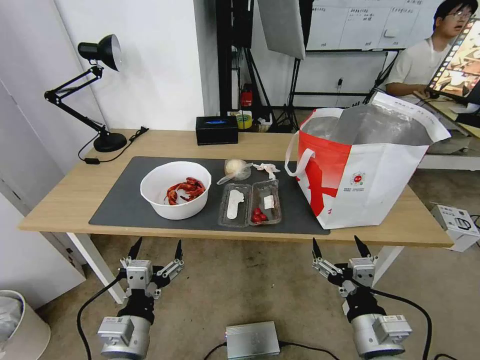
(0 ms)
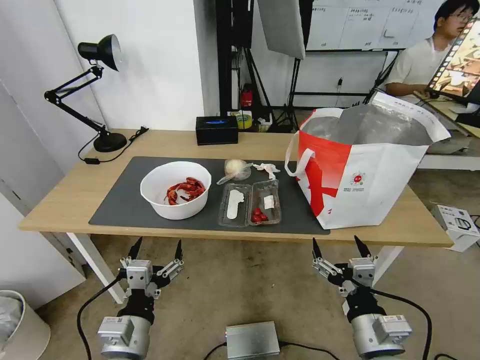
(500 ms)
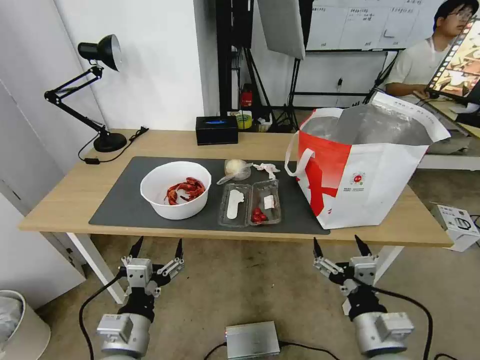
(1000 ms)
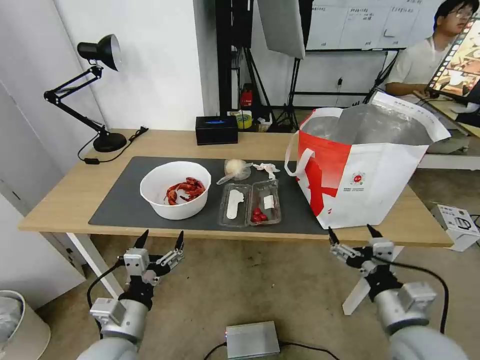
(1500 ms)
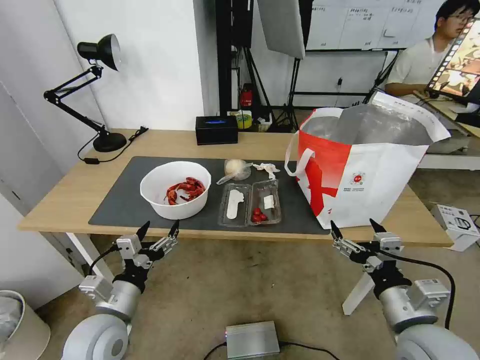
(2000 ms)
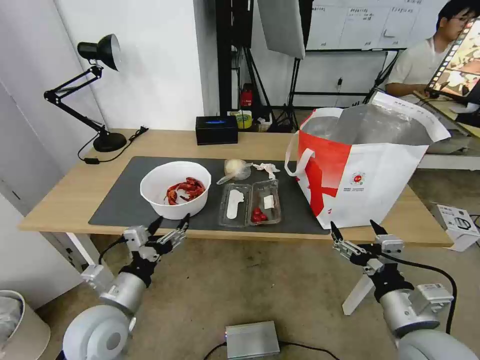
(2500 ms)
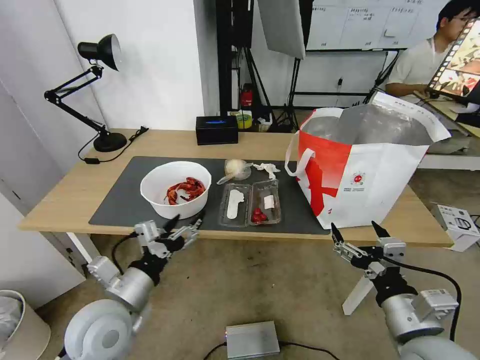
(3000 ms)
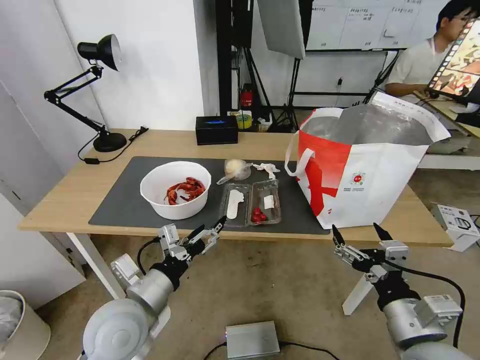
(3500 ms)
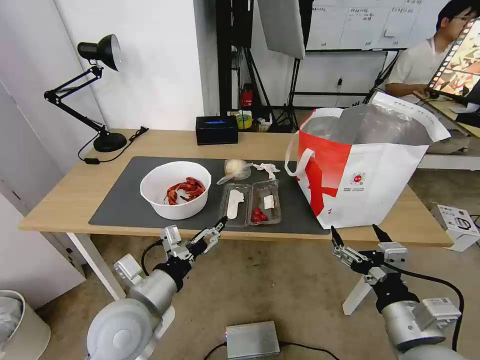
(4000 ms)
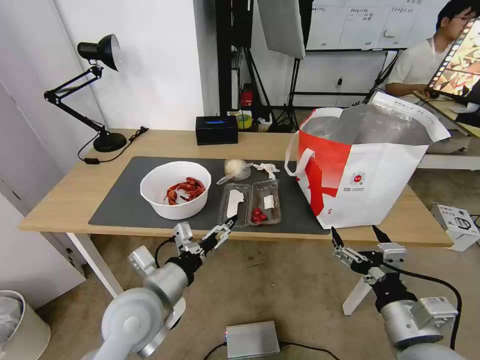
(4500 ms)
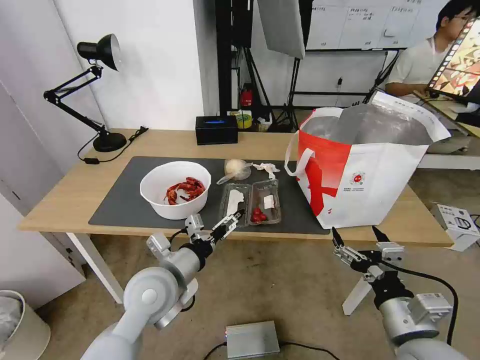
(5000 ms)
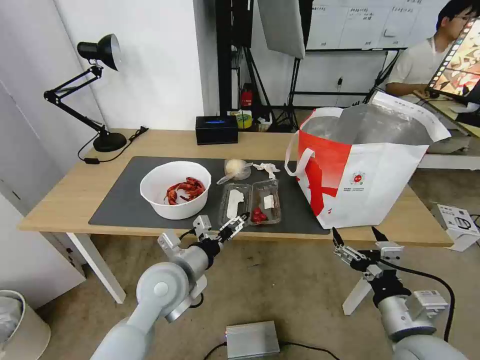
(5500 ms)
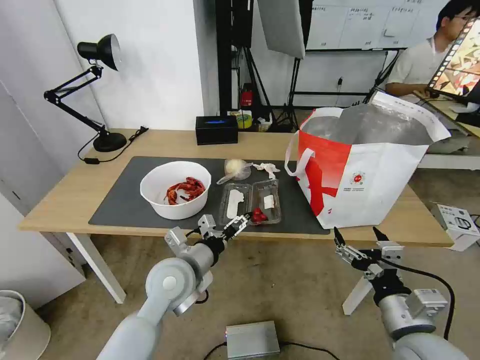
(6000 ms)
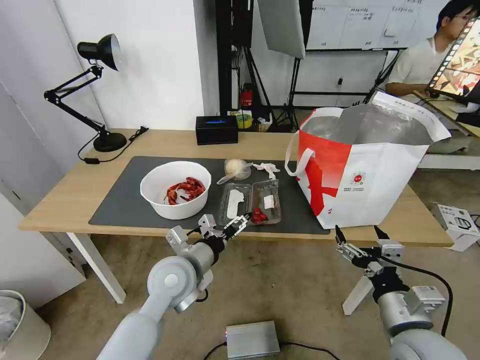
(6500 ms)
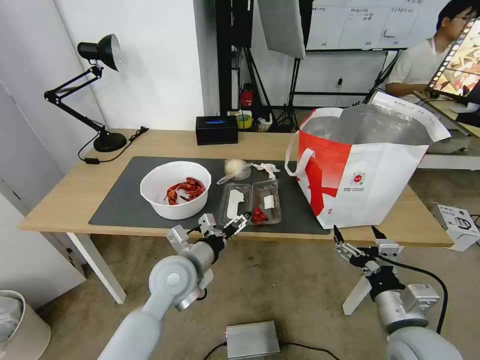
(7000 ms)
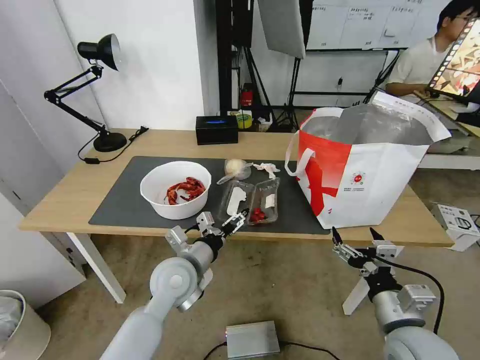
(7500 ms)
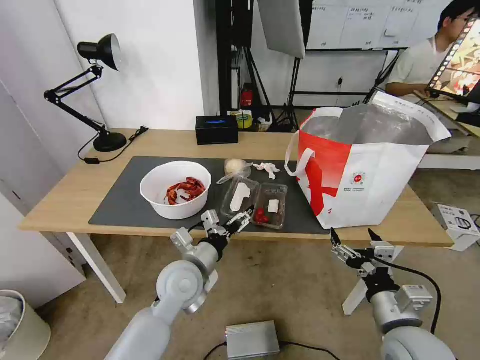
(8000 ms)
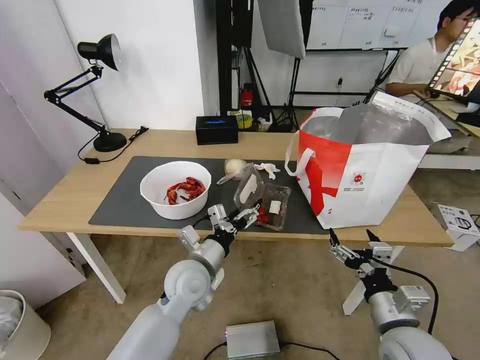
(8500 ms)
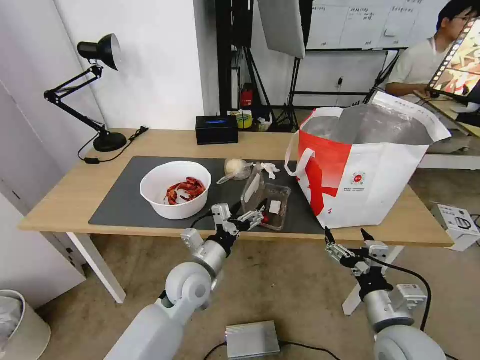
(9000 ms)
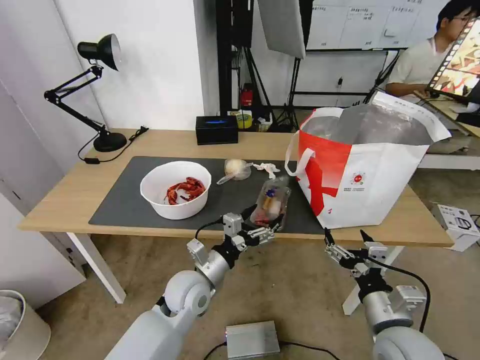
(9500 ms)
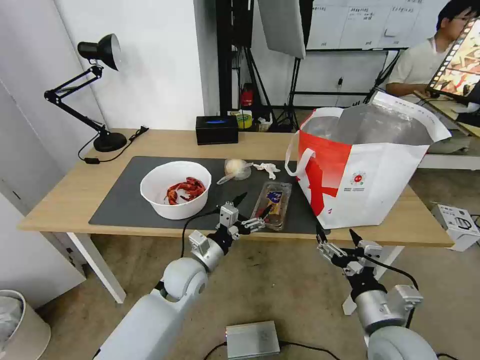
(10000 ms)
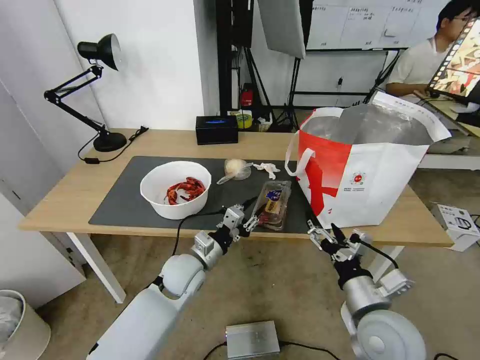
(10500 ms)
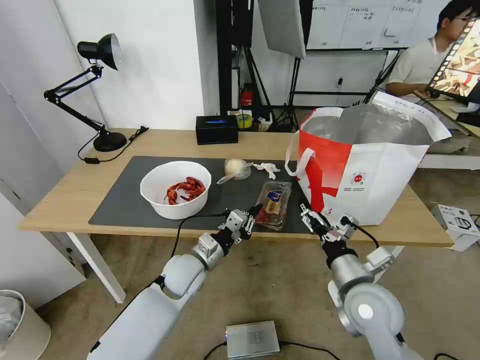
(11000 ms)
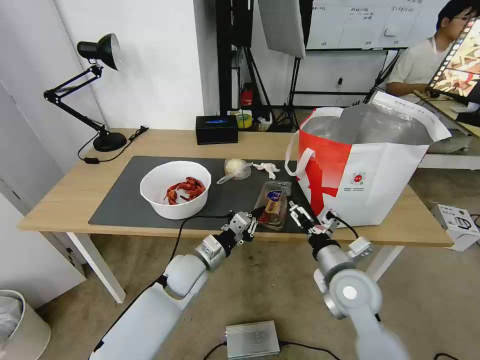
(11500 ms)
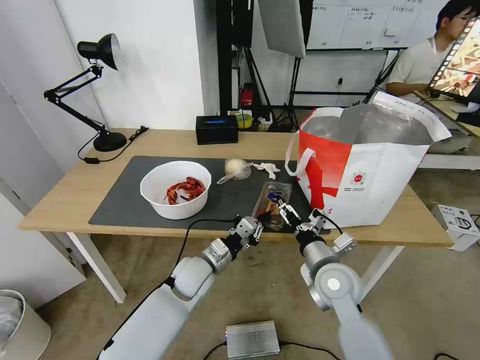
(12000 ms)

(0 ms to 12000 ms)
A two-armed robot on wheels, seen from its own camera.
Task of the whole recording: Pick up the trash from the table and place it into the takeout bag.
2000 ms - 4000 ms: The left gripper moves to the right and upward, some 10 cm.
4000 ms - 6000 ms: The left gripper goes roughly 10 cm forward and to the right.
6000 ms - 8000 ms: The grippers move only a little.
8000 ms - 10000 ms: The left gripper changes place by some 5 cm.
10000 ms - 12000 ms: The left gripper closes up. Meanwhile the right gripper travels forward and to the left by about 15 cm.

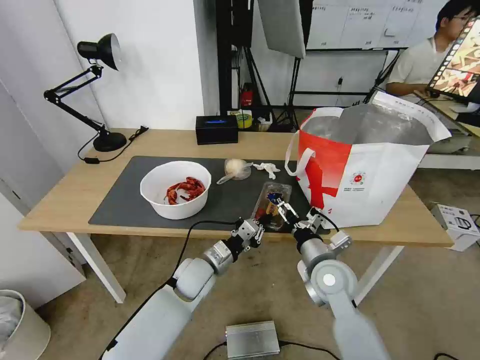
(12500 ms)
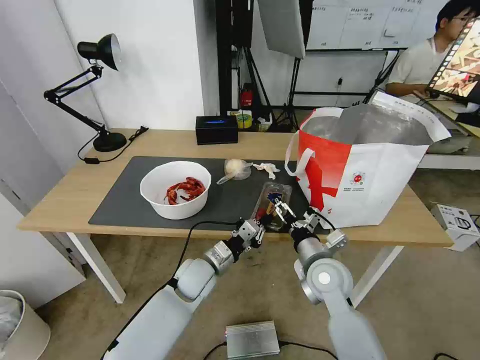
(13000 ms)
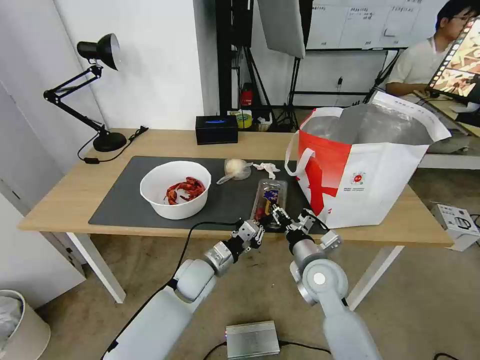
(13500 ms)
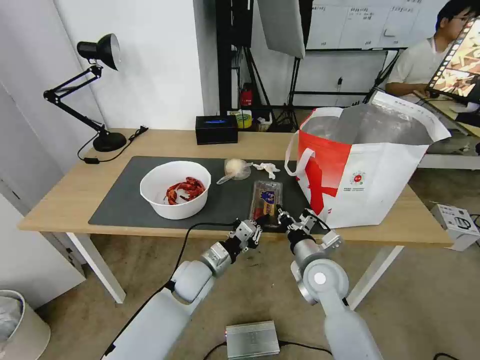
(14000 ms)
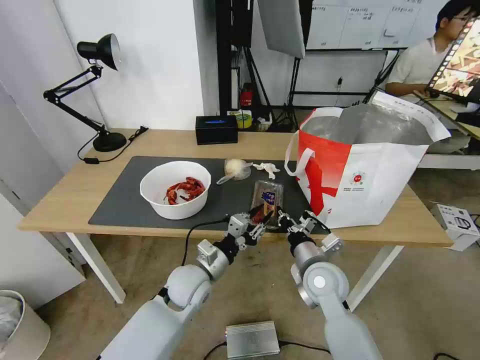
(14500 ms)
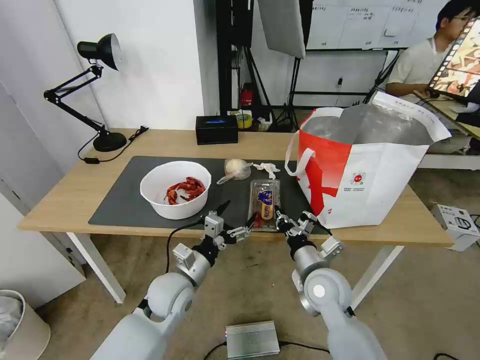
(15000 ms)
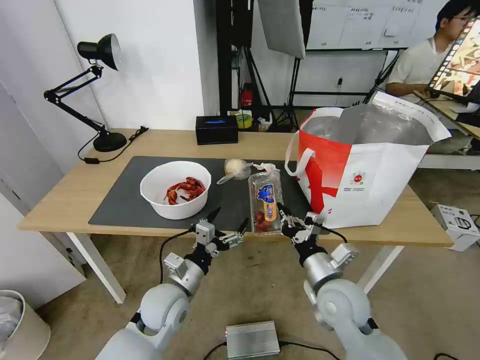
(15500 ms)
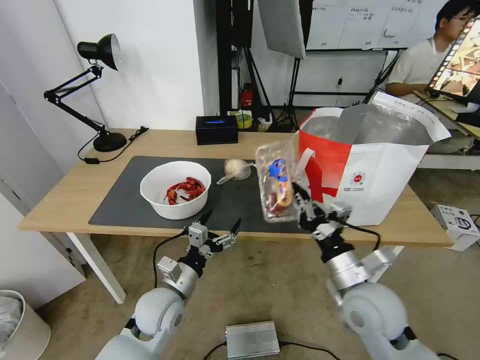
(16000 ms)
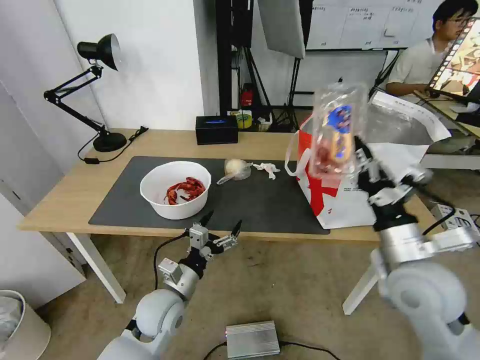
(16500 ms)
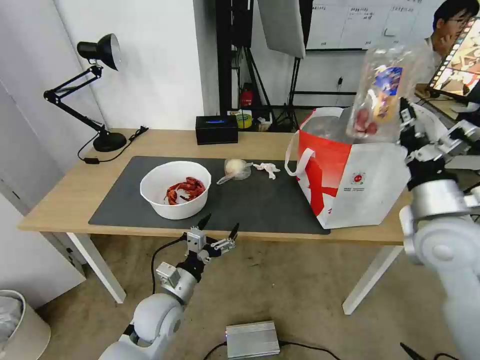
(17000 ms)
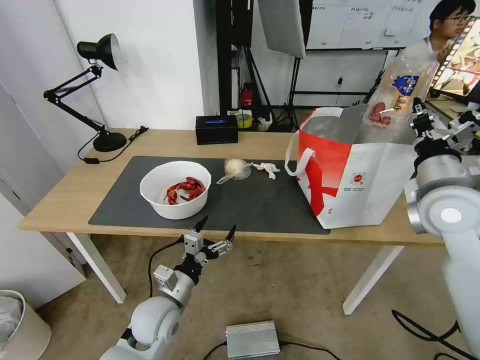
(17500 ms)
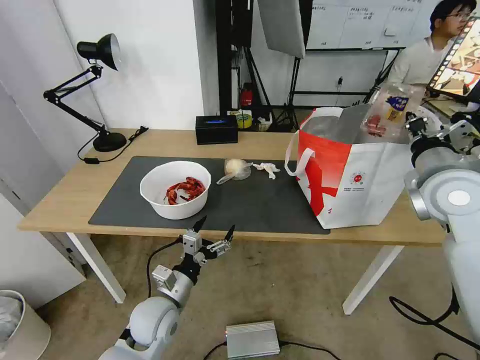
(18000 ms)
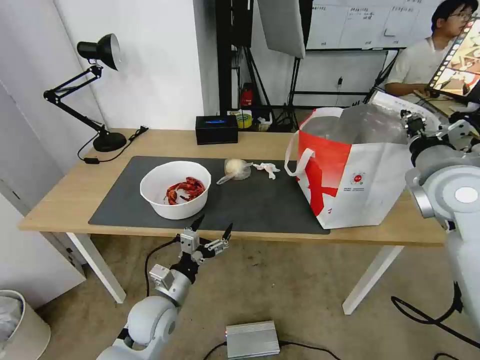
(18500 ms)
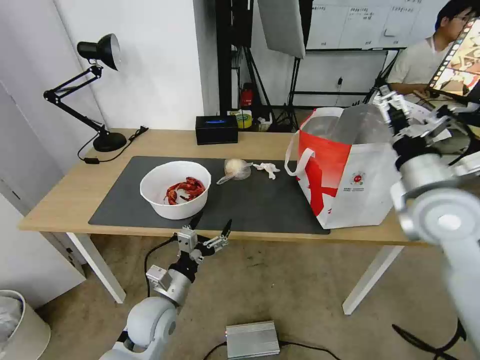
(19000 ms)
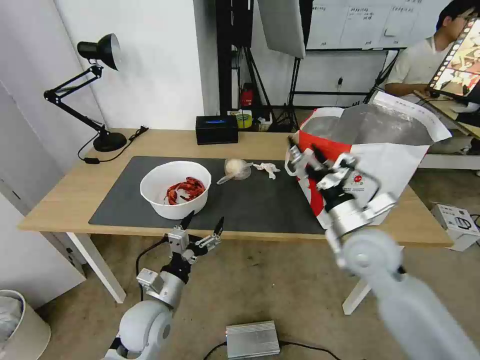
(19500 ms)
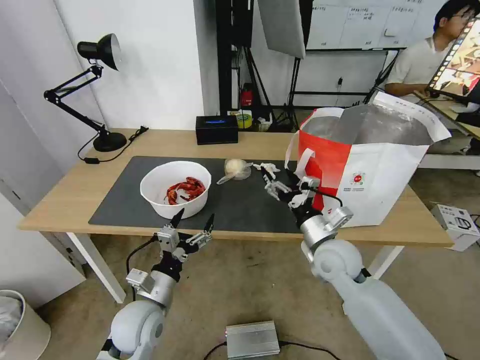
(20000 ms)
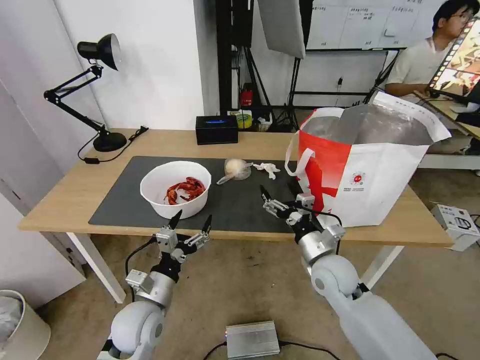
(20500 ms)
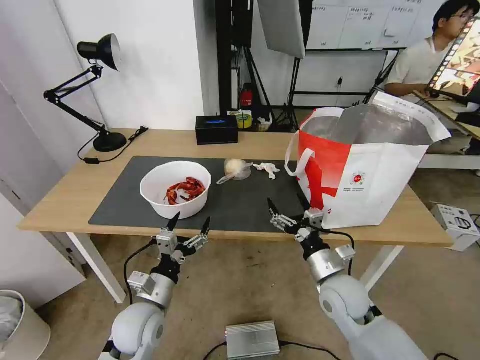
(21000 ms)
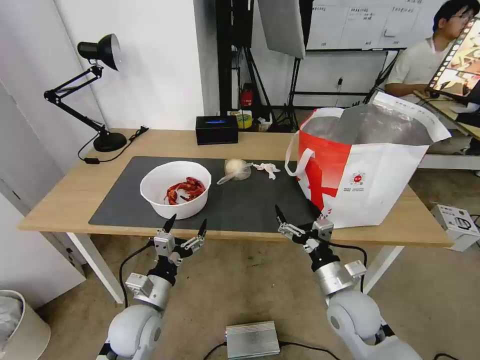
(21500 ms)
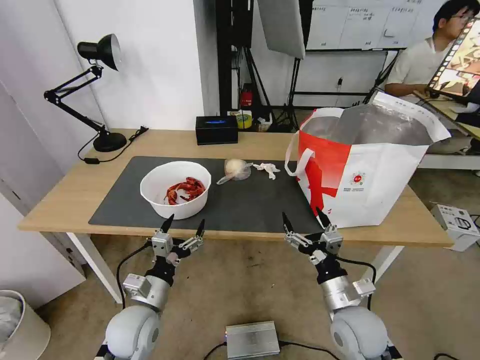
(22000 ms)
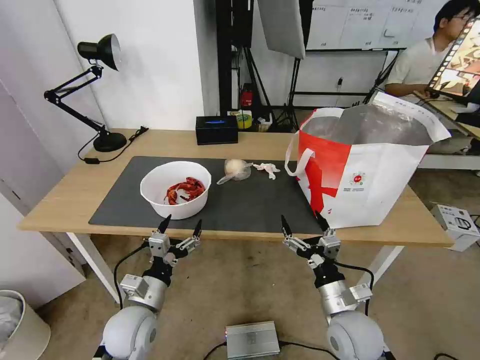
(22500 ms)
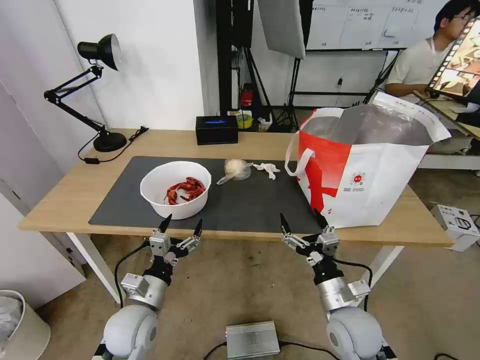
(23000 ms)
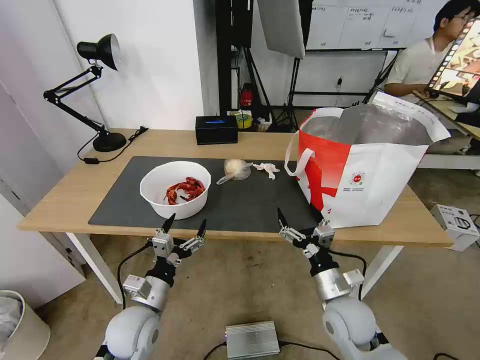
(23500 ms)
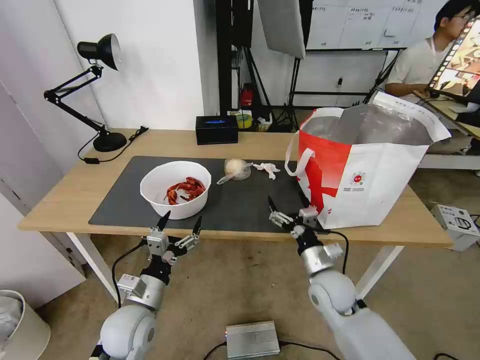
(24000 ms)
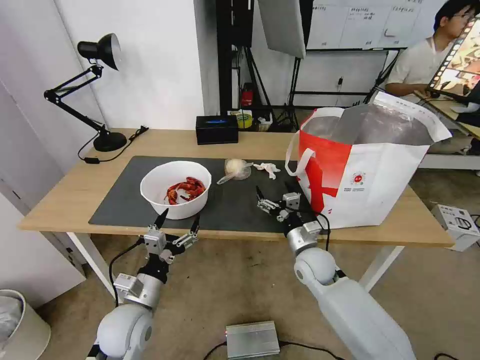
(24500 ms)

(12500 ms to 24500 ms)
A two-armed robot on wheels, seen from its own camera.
Task of the whole recording: Pick up the trash from the table and place it into the takeout bag.
12500 ms - 14500 ms: The right gripper closes up. Meanwhile the left gripper opens up.
14500 ms - 16500 ms: The left gripper travels backward and to the left by about 10 cm, and opens up. Meanwhile the right gripper heads upward, to the right and backward, covering approximately 20 cm.
16500 ms - 18500 ms: The right gripper shifts about 15 cm forward, upward and to the right.
18500 ms - 20500 ms: The right gripper goes approximately 30 cm downward and to the left, and opens.
20500 ms - 22500 ms: The right gripper is displaced backward by some 10 cm.
22500 ms - 24500 ms: The right gripper heads forward, covering approximately 15 cm.

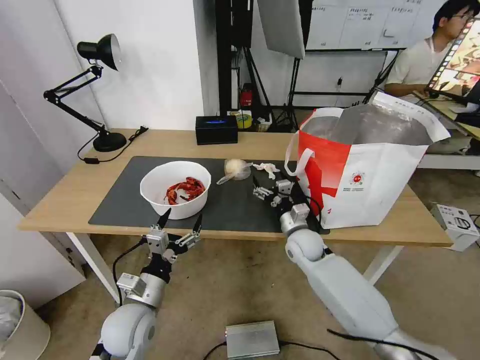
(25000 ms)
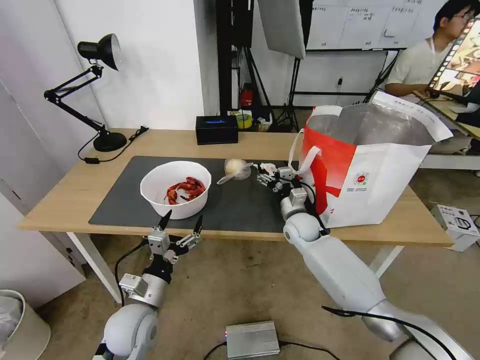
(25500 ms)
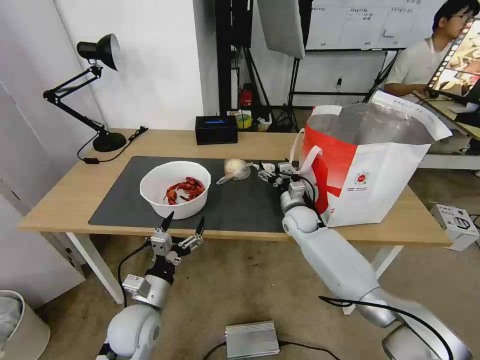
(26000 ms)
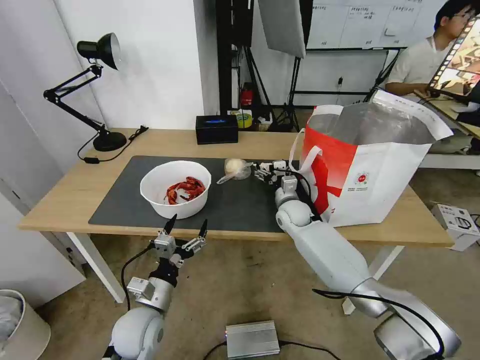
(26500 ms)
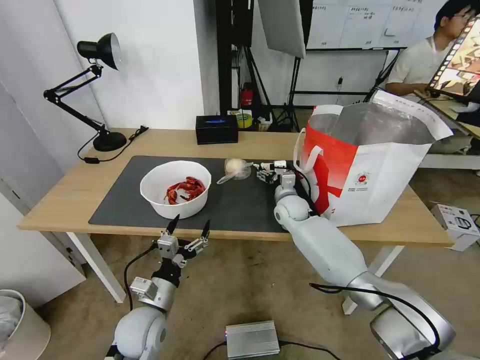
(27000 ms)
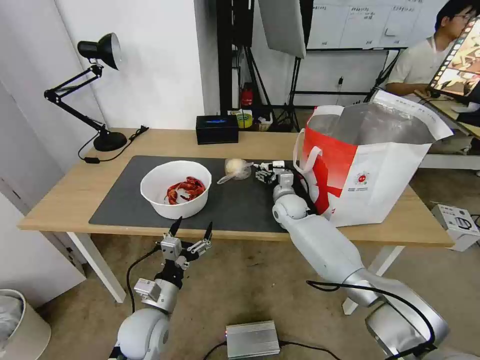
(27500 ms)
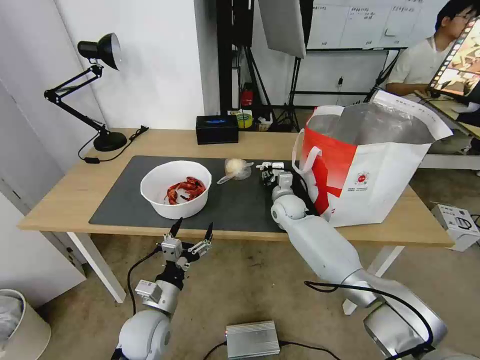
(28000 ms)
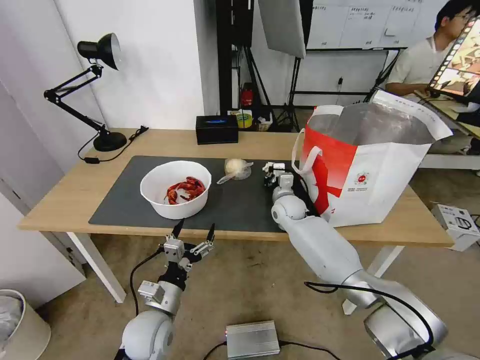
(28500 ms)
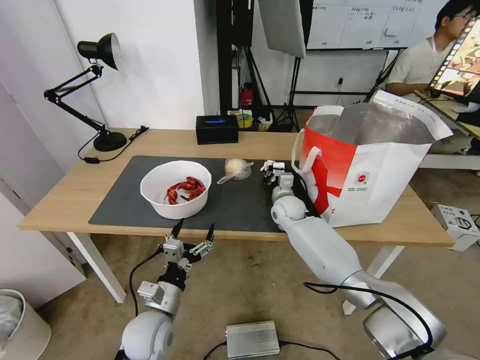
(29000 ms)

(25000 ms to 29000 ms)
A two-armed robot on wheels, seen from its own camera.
Task of the whole recording: Pick up the trash from the table and place it into the takeout bag.
25000 ms - 27000 ms: The right gripper moves forward, roughly 10 cm.
27000 ms - 29000 ms: The right gripper closes.
